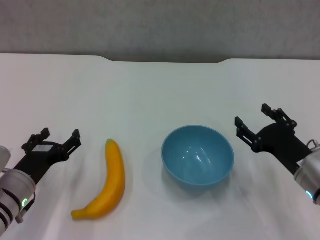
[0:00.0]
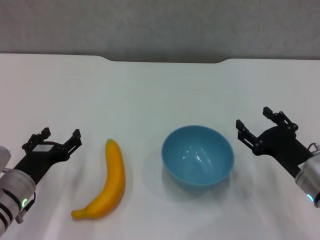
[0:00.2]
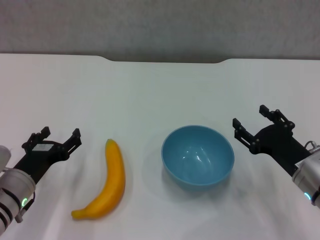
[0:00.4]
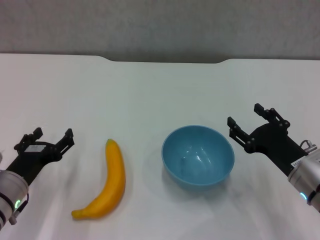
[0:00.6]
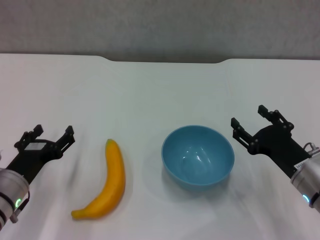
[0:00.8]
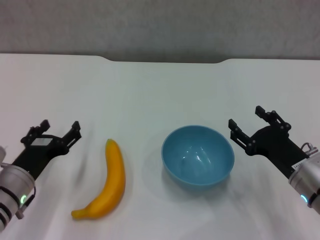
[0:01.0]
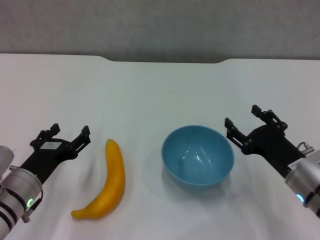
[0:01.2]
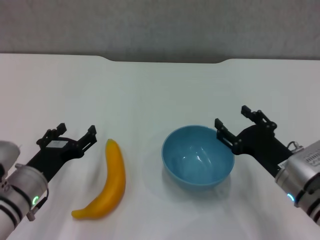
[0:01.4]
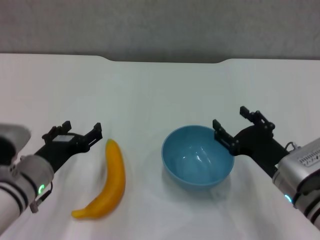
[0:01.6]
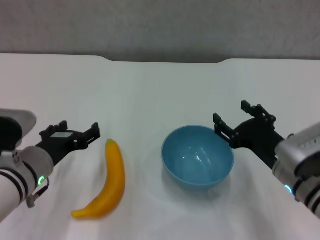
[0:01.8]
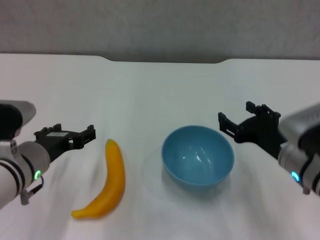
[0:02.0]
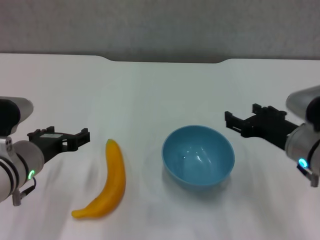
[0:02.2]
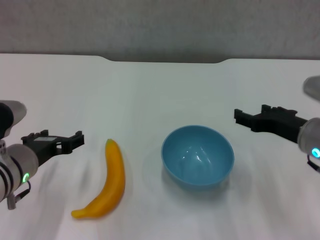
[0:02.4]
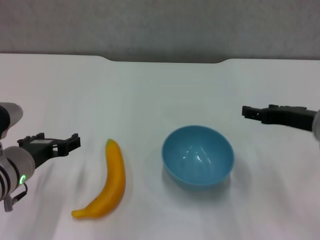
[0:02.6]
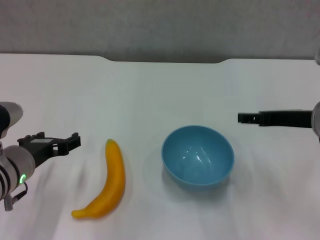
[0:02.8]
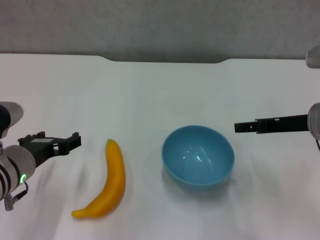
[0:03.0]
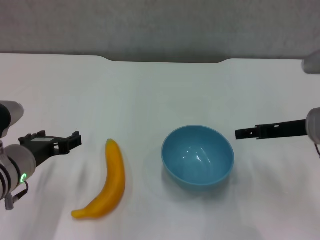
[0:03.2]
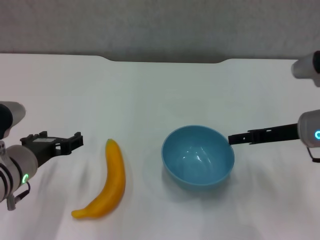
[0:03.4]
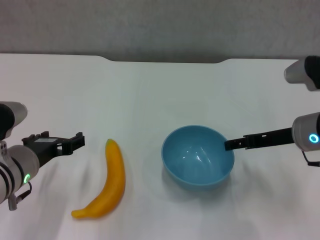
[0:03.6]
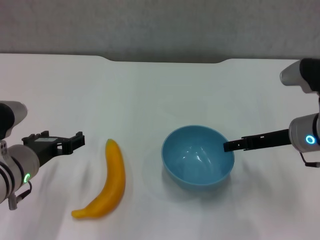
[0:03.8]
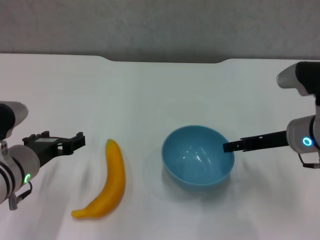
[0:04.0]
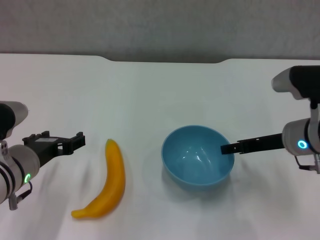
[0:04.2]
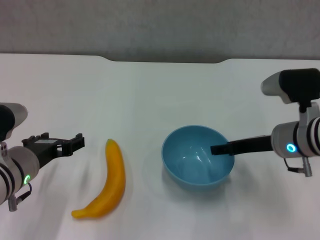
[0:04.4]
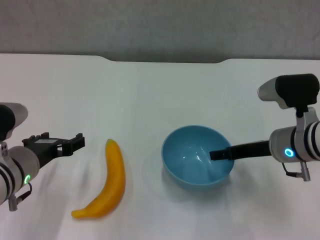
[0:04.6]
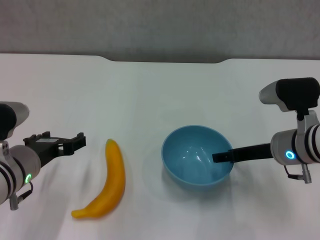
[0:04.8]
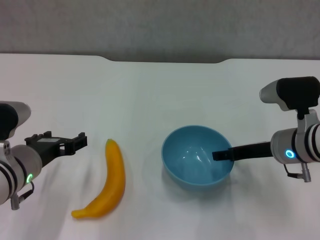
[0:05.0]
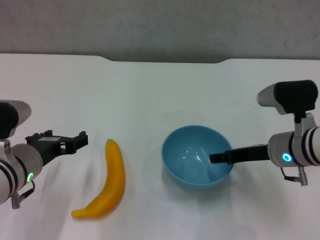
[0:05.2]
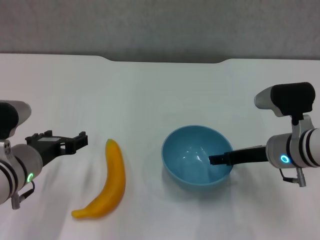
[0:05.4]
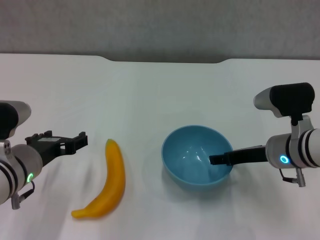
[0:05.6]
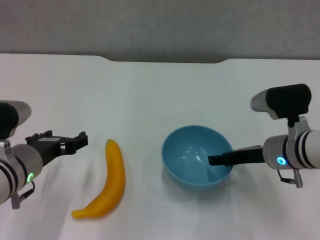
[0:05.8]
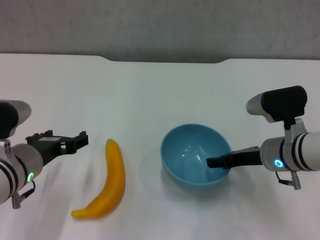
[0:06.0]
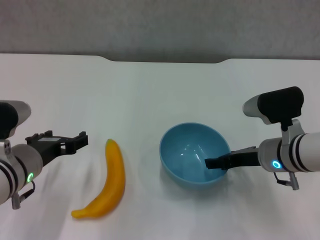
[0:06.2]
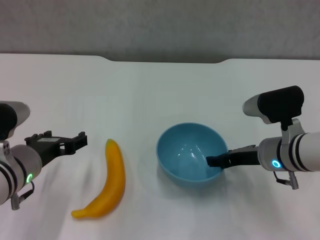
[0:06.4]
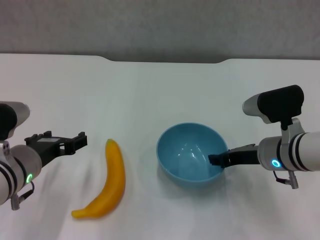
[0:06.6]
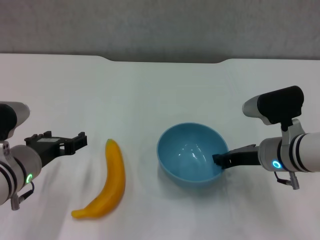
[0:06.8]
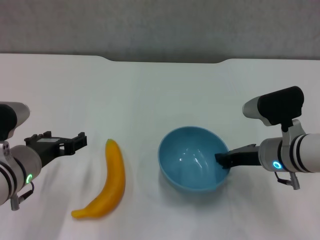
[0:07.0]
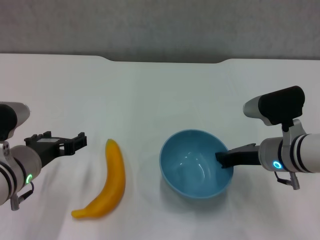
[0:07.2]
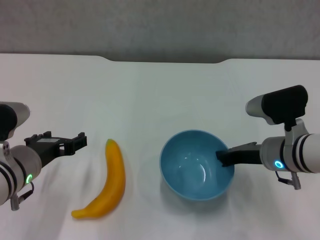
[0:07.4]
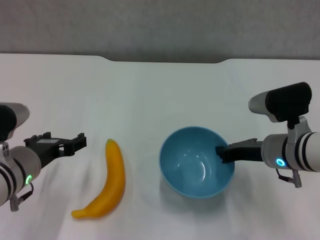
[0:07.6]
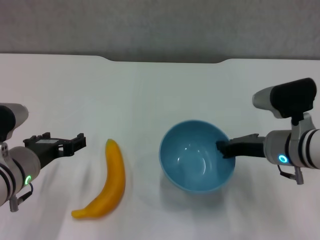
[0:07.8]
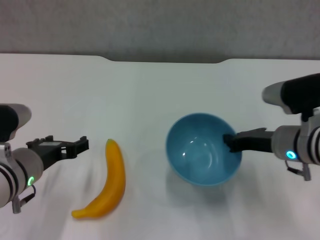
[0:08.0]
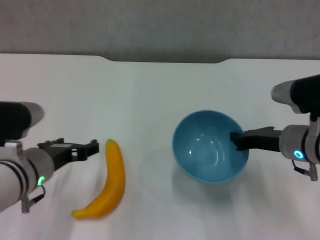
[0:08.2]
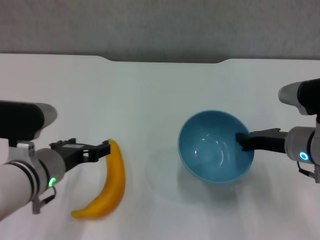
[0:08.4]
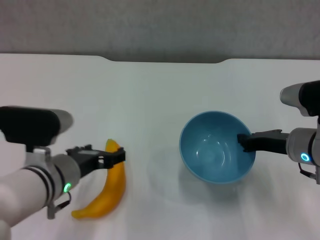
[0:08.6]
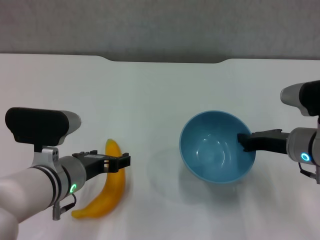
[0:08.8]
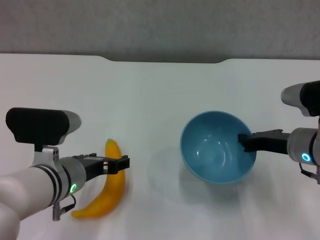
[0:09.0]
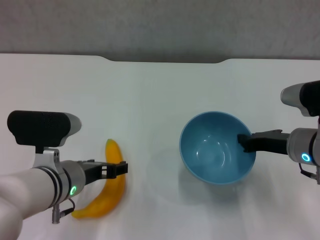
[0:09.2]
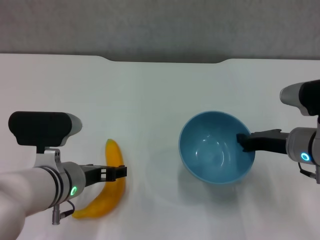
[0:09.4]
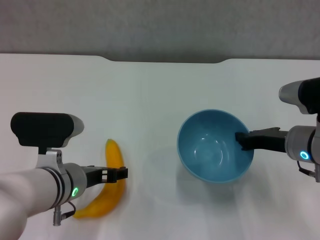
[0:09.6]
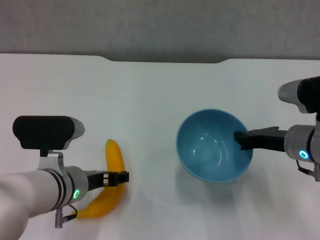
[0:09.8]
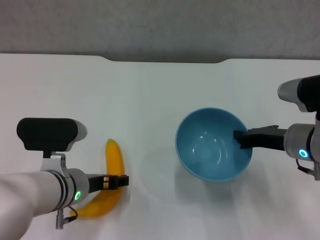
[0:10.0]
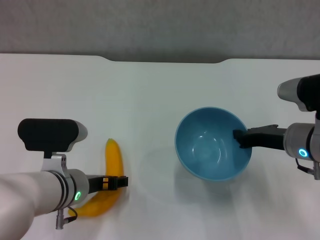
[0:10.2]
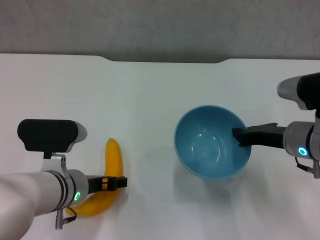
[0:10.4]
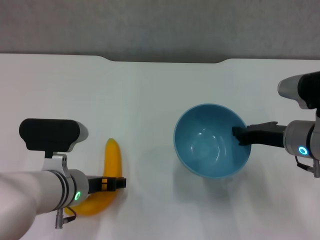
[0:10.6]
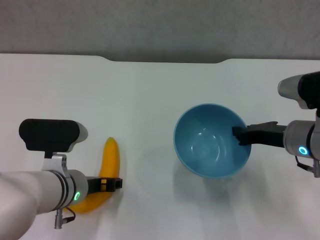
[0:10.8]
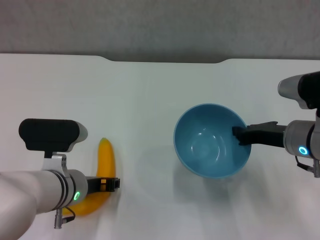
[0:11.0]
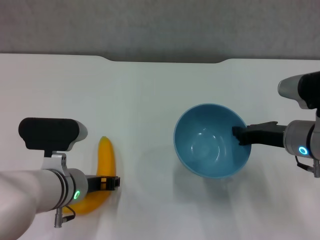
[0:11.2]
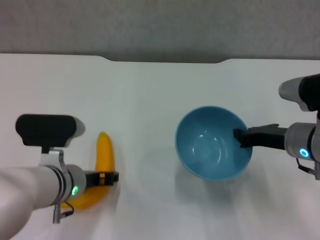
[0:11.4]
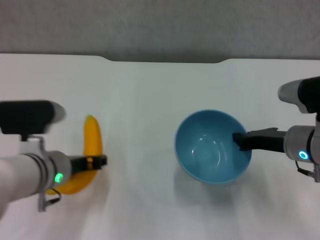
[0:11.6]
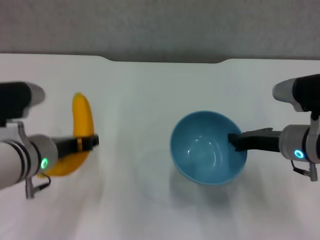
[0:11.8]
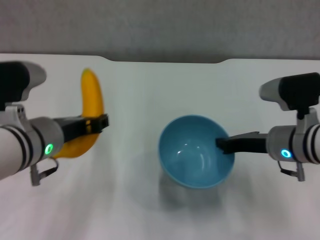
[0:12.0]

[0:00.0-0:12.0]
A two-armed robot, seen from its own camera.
Step, 0:00.0 to 0:07.2: Grasp the blue bowl with right gripper.
Step, 0:07.4 to 0:08.2: Lift the blue bowl with right gripper.
Step, 0:08.4 to 0:11.0: Grasp the banana with left gripper.
0:00.0 to 0:01.6: The left gripper moves approximately 5 cm.
0:01.6 to 0:03.0: The right gripper moves upward and forward, roughly 15 cm.
0:03.0 to 0:04.4: The right gripper moves downward, approximately 5 cm.
0:04.4 to 0:06.0: The grippers stay close to where they were, moving slightly.
0:06.0 to 0:07.6: The right gripper closes.
0:07.6 to 0:09.0: The left gripper moves to the right, roughly 5 cm.
0:09.0 to 0:10.4: There are only small adjustments of the grippers.
0:10.4 to 0:12.0: The left gripper goes about 10 cm upward, and closes up.

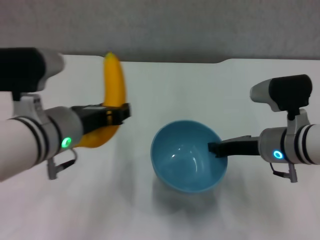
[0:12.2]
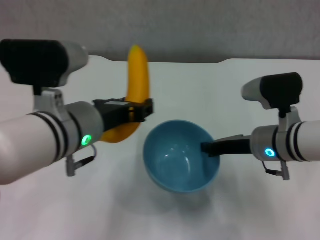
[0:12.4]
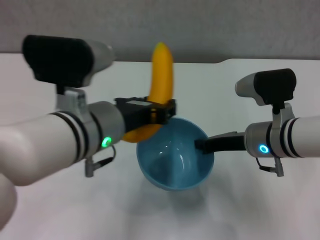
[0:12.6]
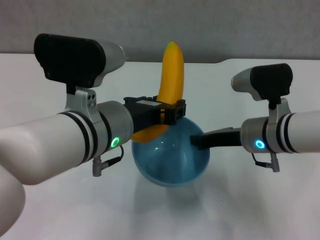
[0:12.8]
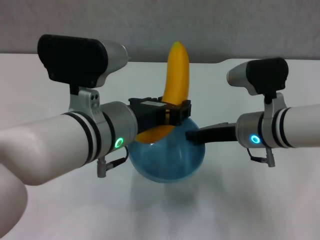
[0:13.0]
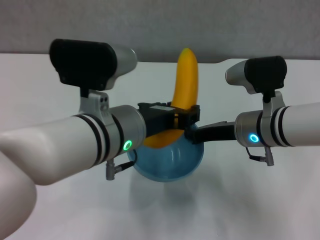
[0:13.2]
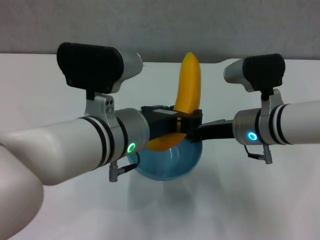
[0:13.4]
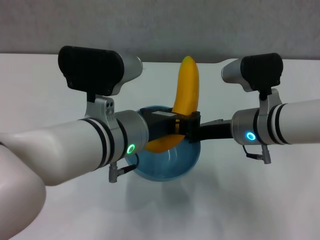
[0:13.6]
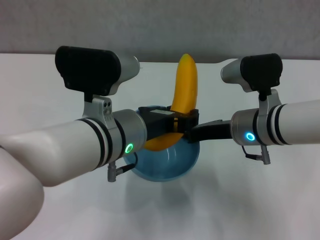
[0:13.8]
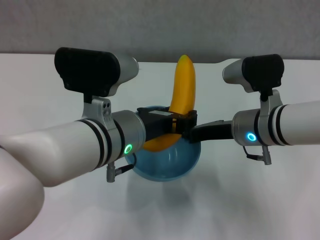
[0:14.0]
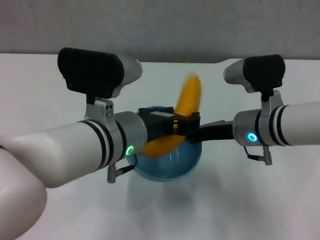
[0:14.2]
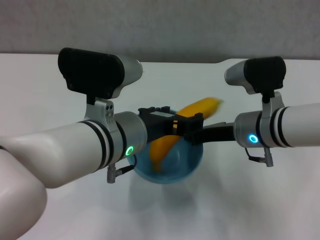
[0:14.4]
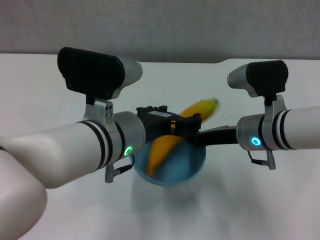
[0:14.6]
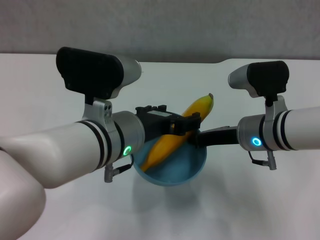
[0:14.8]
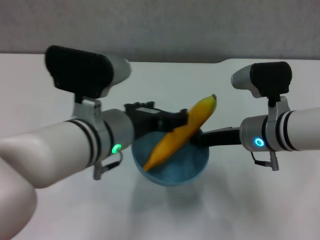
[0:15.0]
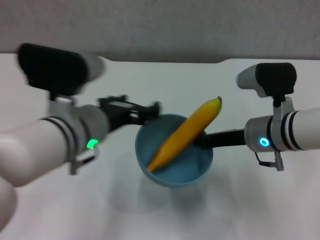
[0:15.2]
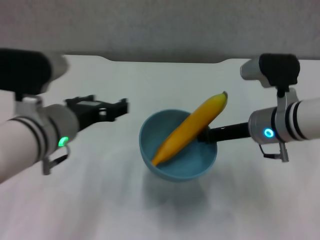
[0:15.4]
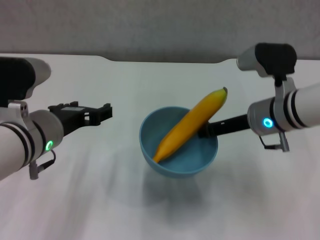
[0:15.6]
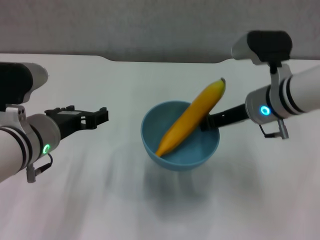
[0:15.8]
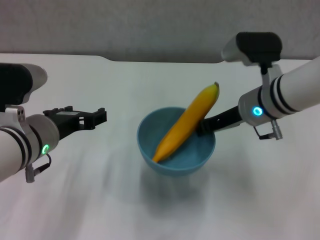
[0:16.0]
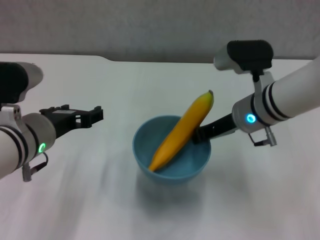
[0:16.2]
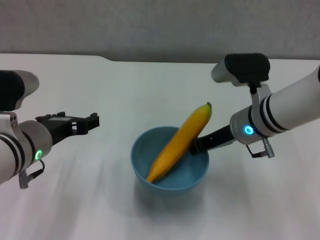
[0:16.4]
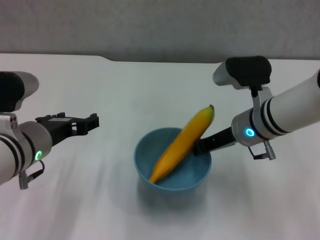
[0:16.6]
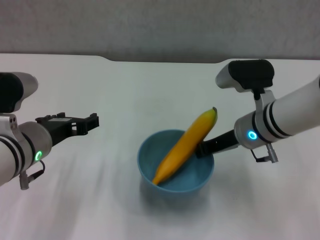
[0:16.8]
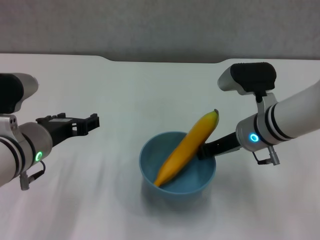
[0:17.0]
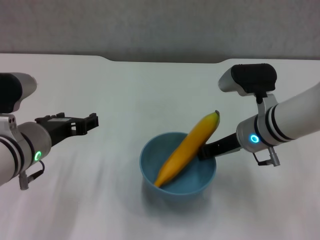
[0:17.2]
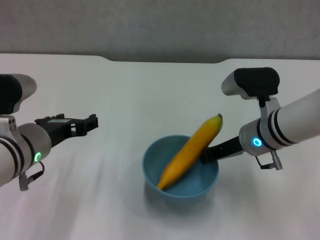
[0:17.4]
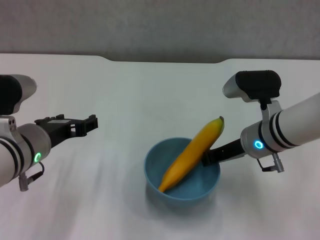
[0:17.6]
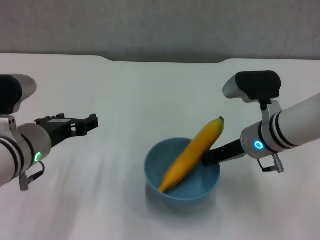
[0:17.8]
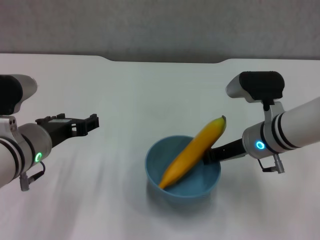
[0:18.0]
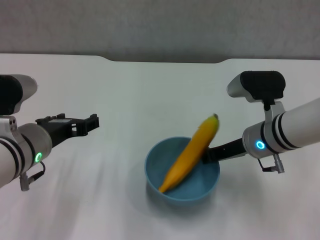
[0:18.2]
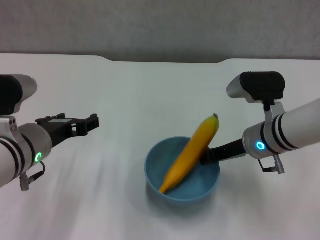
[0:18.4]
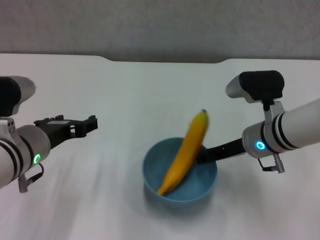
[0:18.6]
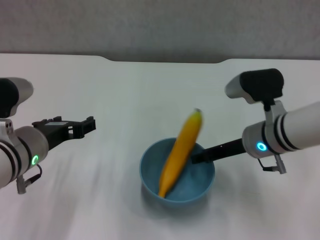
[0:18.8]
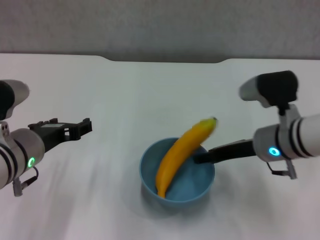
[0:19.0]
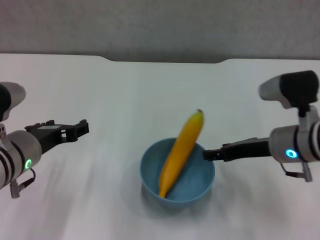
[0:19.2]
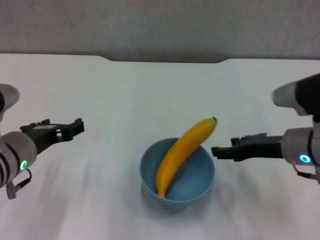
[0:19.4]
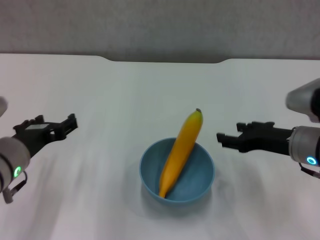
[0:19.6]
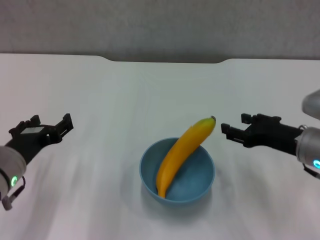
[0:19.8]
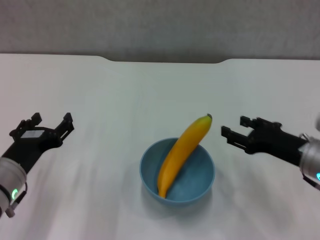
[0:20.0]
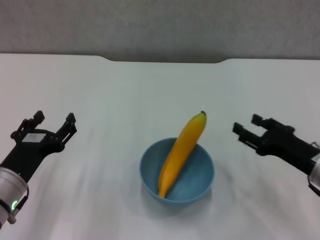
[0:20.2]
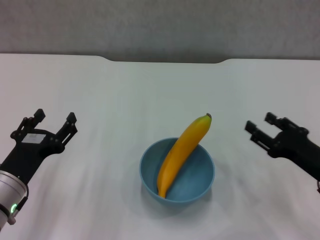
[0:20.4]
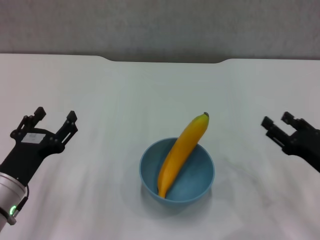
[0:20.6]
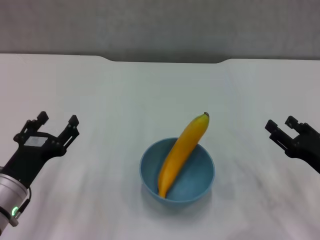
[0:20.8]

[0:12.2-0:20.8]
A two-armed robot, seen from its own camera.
Step, 0:12.2 to 0:14.4: Place the banana in the blue bowl with left gripper.
Step, 0:14.6 to 0:19.2: Place the bowl on the table with right gripper.
0:12.2 to 0:13.6: The right gripper shifts by about 5 cm, while the left gripper shifts approximately 5 cm to the right.
0:13.6 to 0:15.0: The left gripper opens.
0:15.0 to 0:16.6: The left gripper is displaced to the left by about 10 cm.
0:16.6 to 0:18.0: The grippers make only small movements.
0:18.0 to 0:19.4: The right gripper moves to the right, approximately 5 cm, and opens its fingers.
0:19.4 to 0:20.8: The left gripper travels downward by about 10 cm; the right gripper is displaced to the right, downward and backward by some 10 cm.
